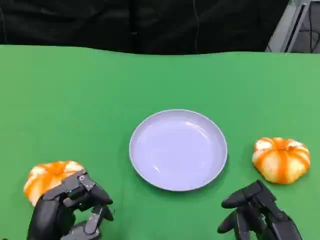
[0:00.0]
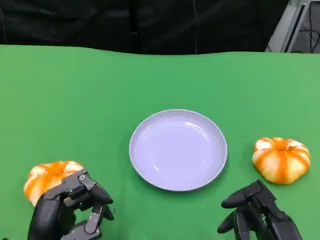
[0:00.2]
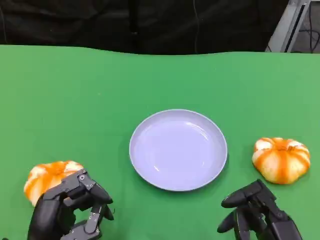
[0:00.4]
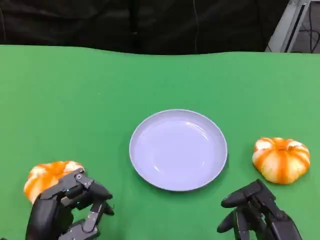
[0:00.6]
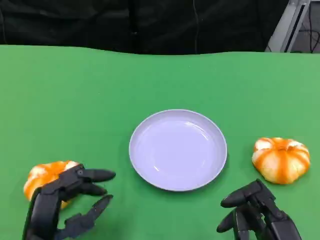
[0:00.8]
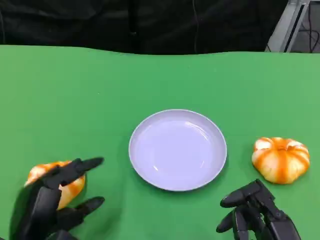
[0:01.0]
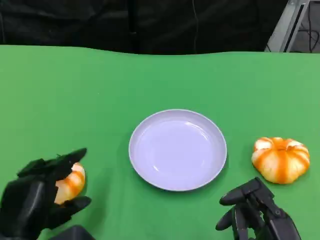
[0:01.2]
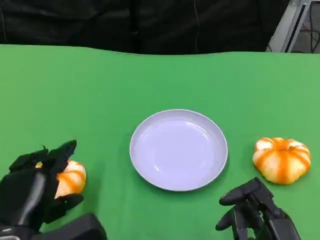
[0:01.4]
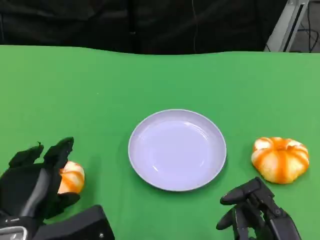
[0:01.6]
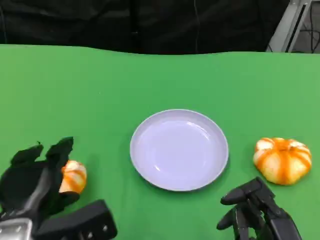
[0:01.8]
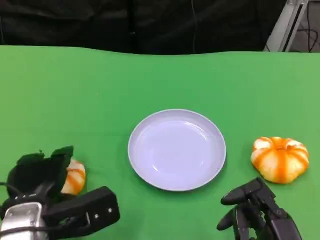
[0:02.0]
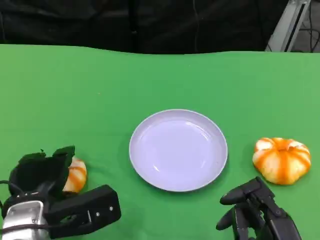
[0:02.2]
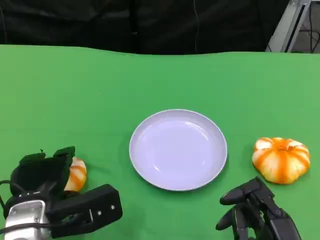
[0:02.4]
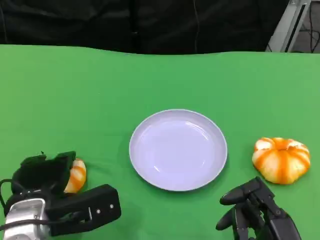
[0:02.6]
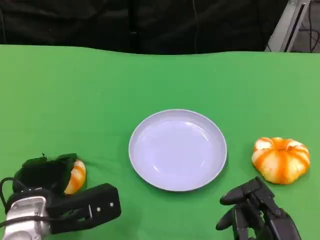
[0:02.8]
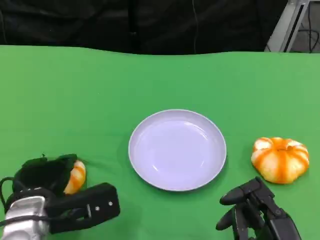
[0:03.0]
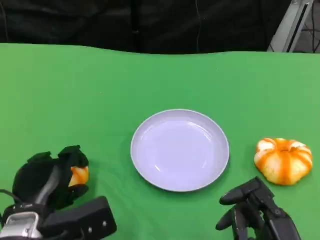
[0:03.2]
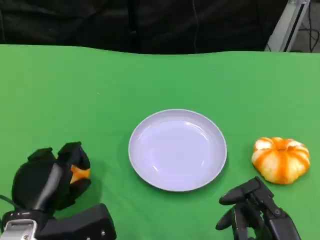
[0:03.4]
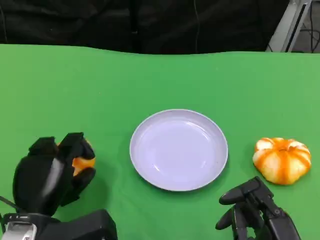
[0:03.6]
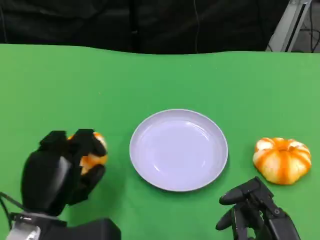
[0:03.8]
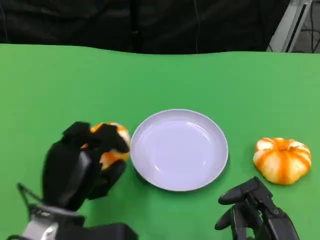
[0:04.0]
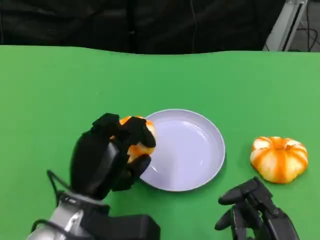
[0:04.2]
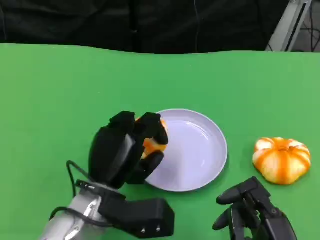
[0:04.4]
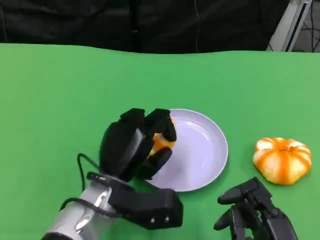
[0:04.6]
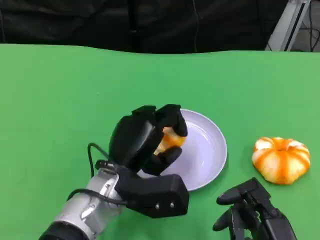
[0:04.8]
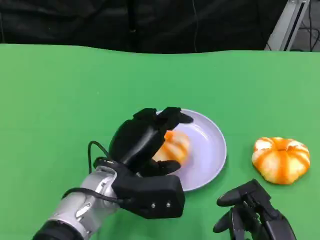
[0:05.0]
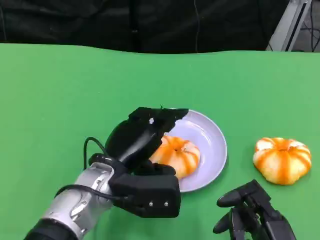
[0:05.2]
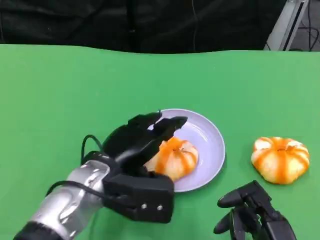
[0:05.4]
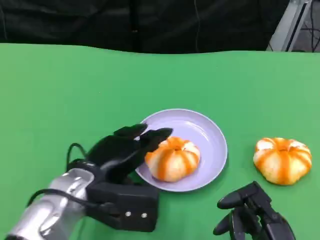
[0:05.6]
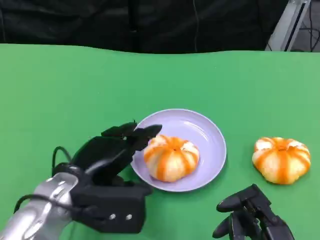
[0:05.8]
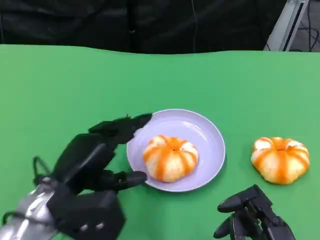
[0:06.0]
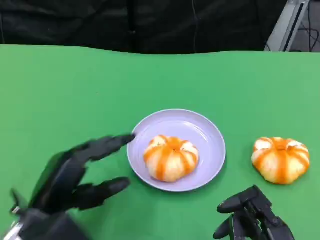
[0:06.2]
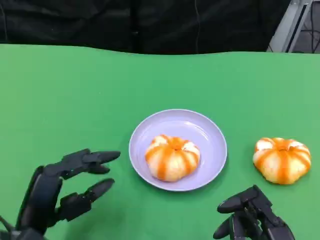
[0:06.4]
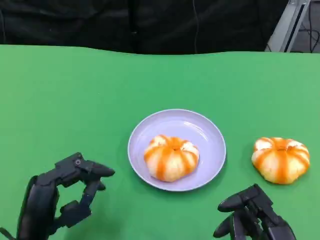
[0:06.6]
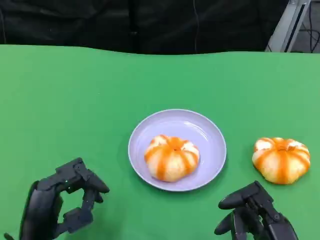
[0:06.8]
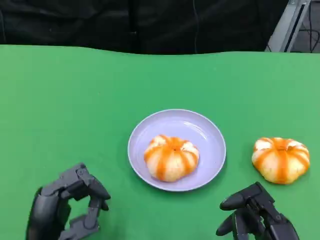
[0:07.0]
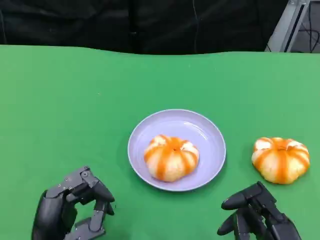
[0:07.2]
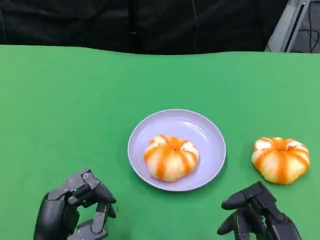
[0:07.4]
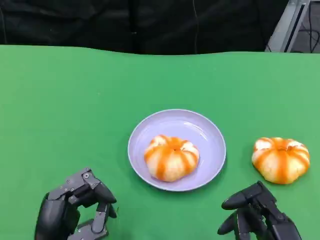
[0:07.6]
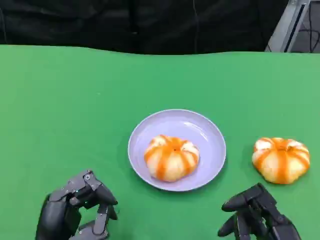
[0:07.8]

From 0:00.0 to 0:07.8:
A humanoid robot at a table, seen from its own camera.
Task of the whole recording: Grasp the bread from the table and place it into the plate.
From 0:00.0 to 0:01.6: The left hand changes place by about 5 cm.
From 0:03.2 to 0:04.6: The left hand goes roughly 10 cm to the right.
From 0:04.6 to 0:06.2: The left hand is displaced to the left and backward by about 15 cm.
From 0:06.2 to 0:07.8: The left hand moves some 5 cm.

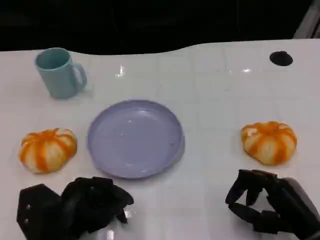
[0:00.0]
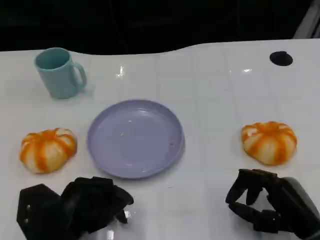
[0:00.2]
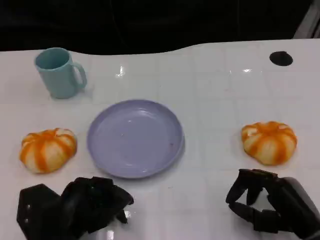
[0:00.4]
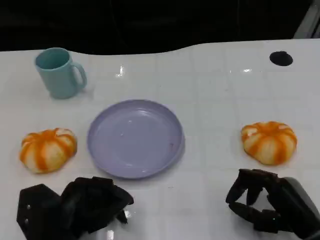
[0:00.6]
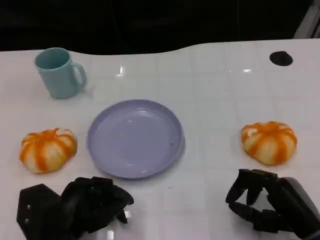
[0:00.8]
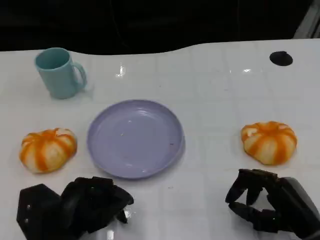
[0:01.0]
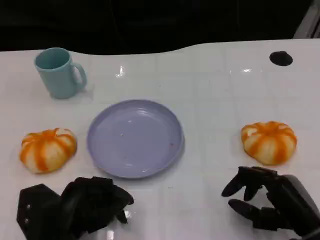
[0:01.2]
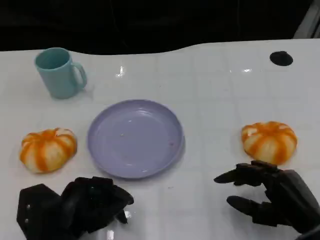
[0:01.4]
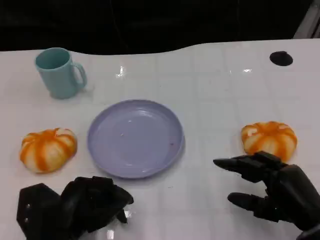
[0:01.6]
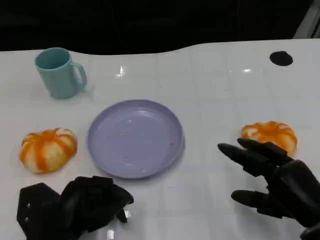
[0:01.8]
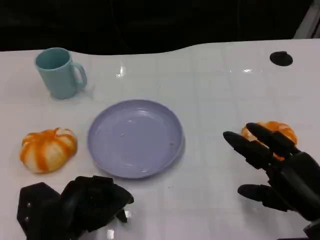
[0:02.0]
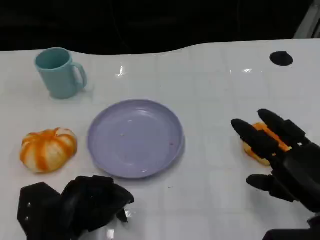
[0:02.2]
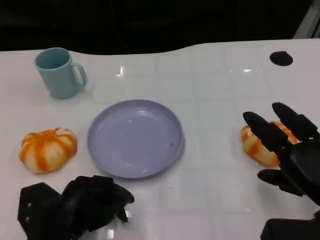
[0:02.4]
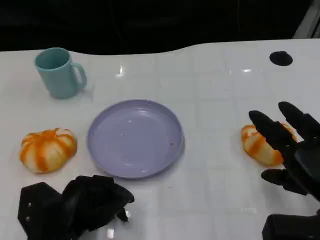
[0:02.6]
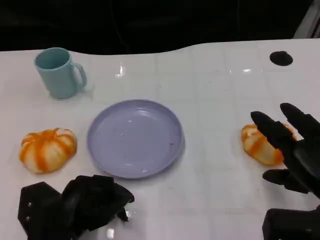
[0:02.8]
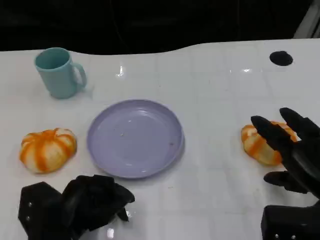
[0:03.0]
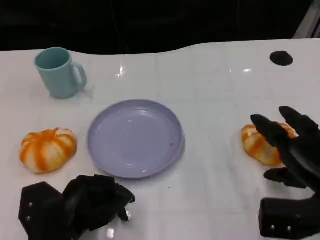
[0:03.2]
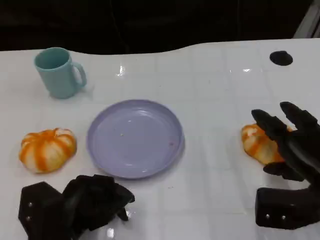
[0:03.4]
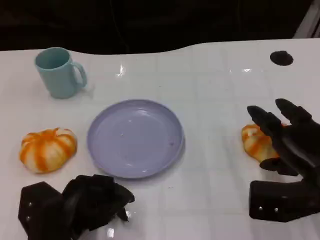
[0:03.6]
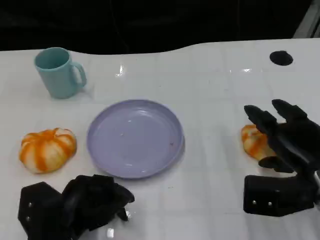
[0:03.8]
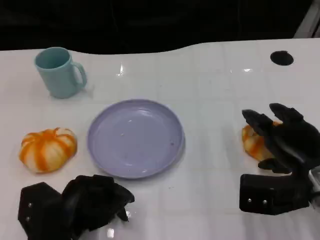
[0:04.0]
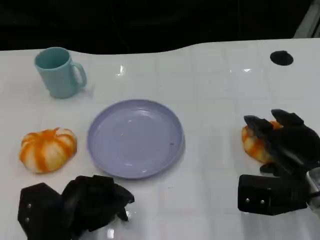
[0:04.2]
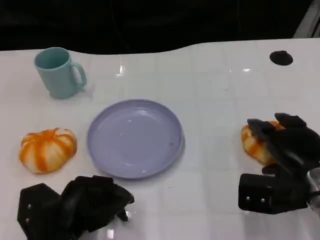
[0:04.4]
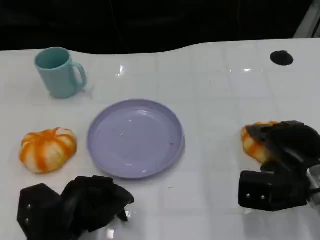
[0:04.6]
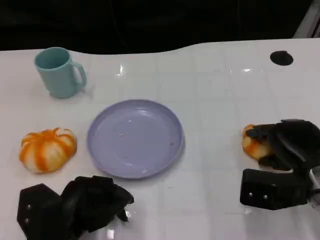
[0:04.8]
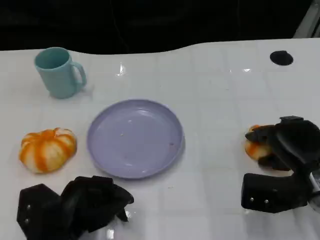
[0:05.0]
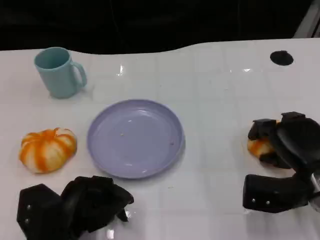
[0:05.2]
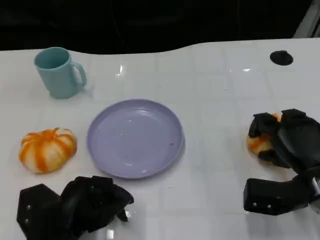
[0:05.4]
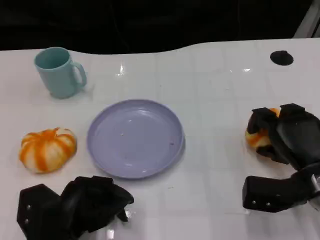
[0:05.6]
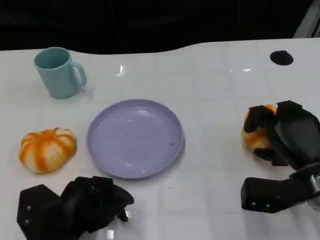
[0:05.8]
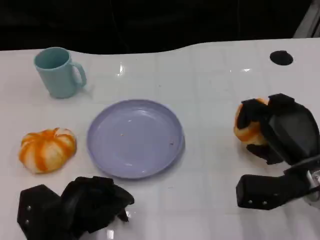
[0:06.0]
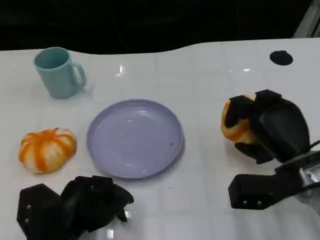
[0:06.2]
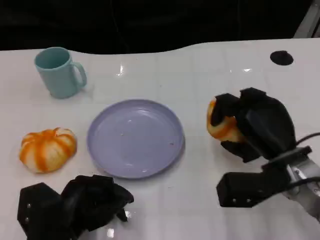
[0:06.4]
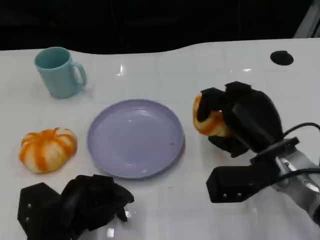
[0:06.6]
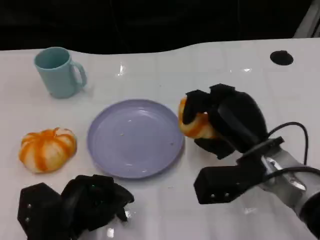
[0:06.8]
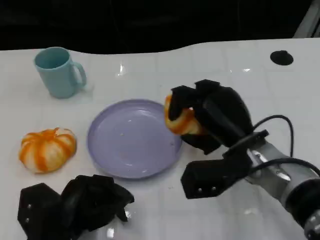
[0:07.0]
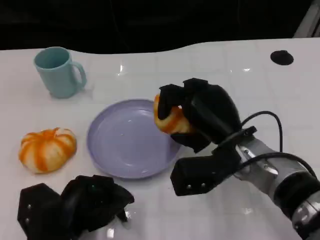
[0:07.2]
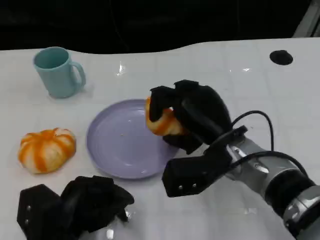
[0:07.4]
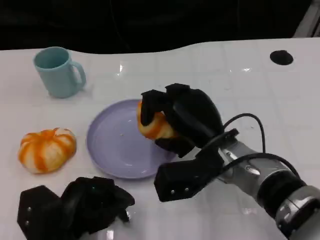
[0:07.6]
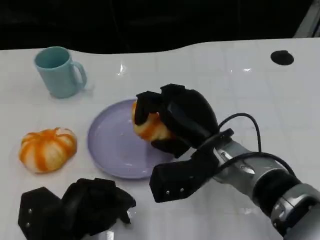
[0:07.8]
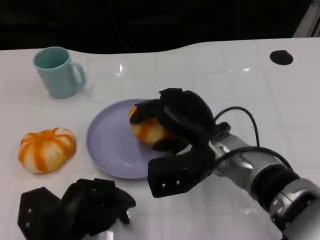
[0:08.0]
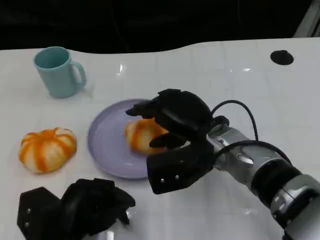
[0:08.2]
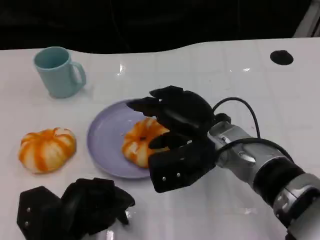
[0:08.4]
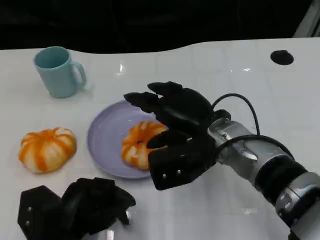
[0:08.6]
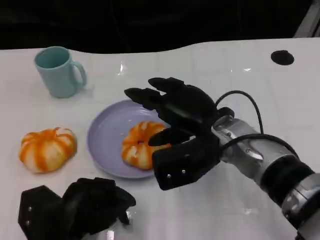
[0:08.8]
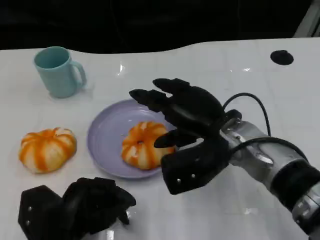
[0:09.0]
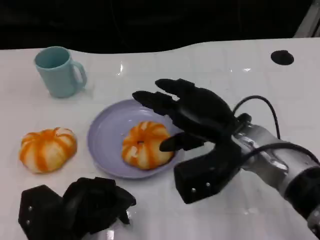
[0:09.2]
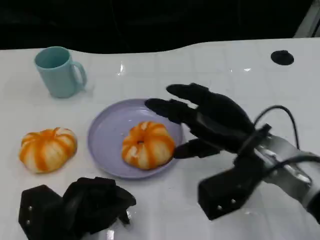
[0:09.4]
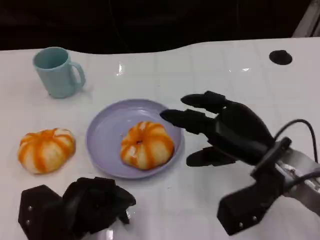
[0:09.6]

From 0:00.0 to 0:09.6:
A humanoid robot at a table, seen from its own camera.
Task of the whole recording: Grasp the bread from the table and place it into the plate.
From 0:00.0 to 0:01.6: The hands make only small movements.
From 0:01.6 to 0:03.2: The right hand shifts by approximately 5 cm.
From 0:03.2 to 0:04.8: The hands move only a little.
From 0:04.8 to 0:06.4: The right hand ends up approximately 5 cm from where it was.
From 0:06.4 to 0:08.0: The right hand heads to the left, covering some 10 cm.
From 0:08.0 to 0:09.6: The right hand is displaced to the right by approximately 10 cm.

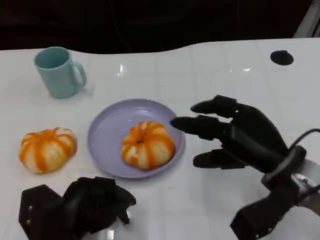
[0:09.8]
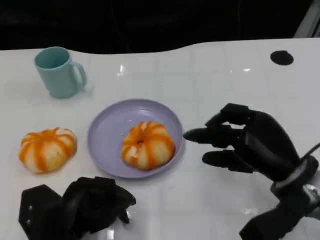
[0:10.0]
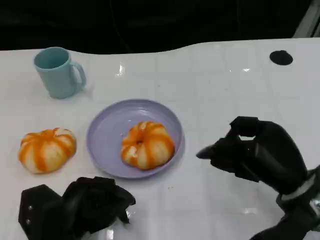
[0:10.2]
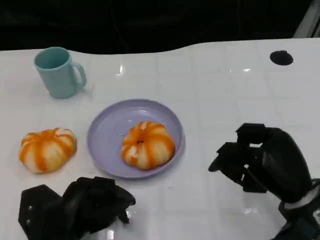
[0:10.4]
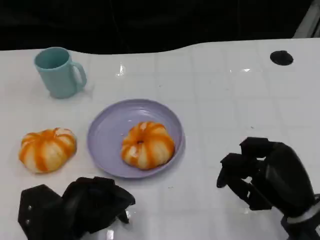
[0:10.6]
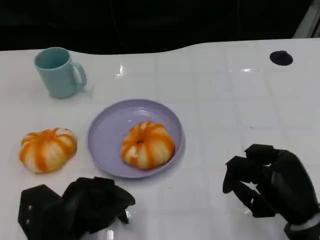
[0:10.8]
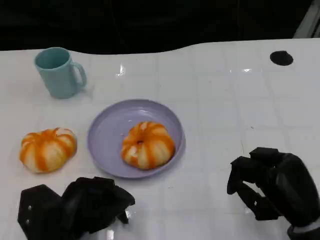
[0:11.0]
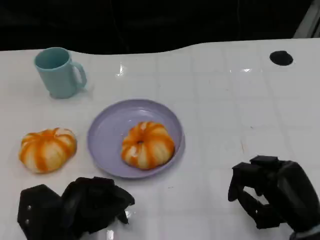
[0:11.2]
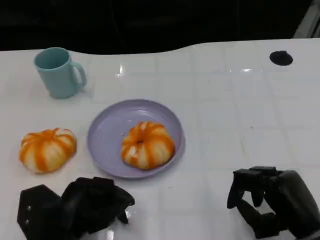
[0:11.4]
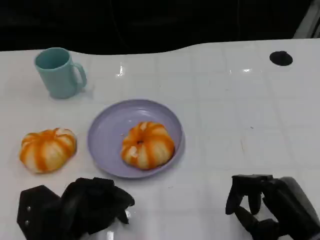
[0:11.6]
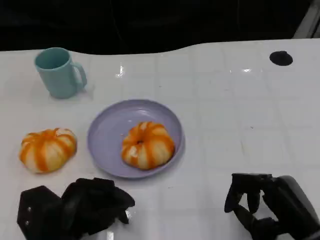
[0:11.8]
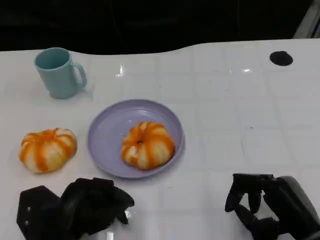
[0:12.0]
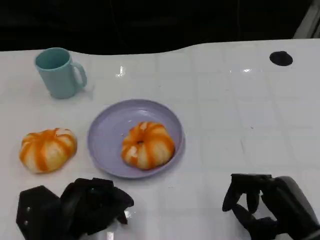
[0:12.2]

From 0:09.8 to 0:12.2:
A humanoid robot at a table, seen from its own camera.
Task of the whole recording: Grasp the bread from the table and place it into the plate.
From 0:09.8 to 0:11.0: The right hand moves backward and downward, approximately 10 cm.

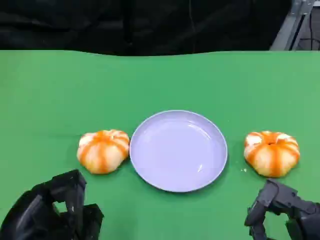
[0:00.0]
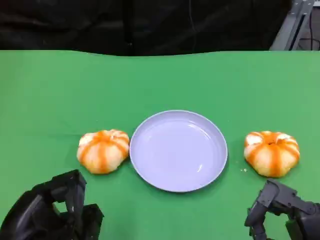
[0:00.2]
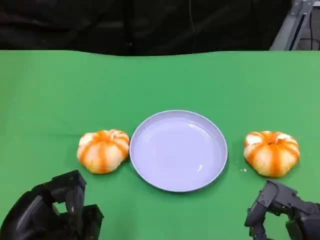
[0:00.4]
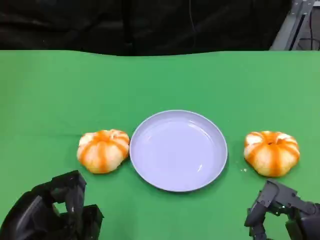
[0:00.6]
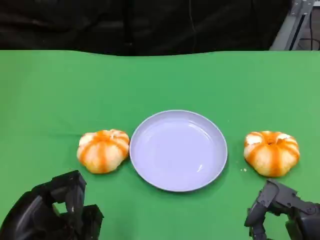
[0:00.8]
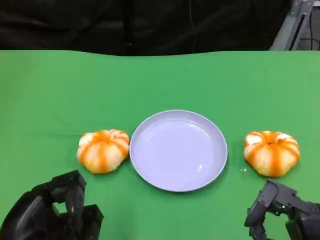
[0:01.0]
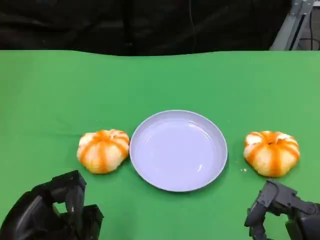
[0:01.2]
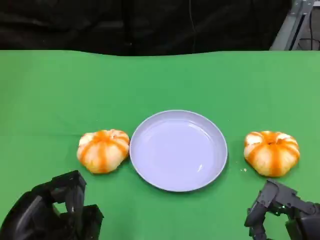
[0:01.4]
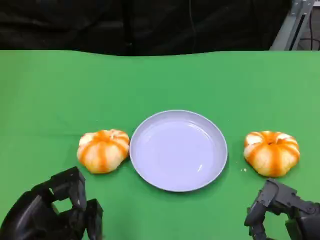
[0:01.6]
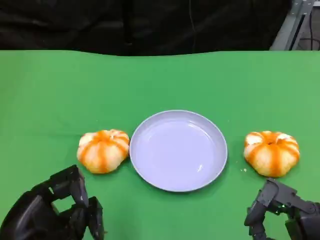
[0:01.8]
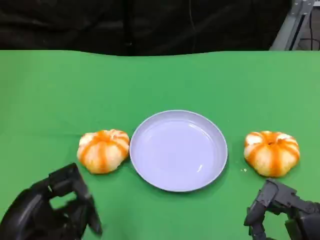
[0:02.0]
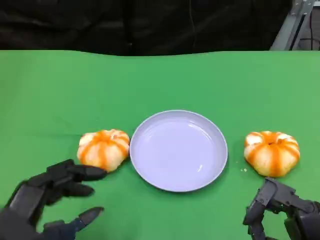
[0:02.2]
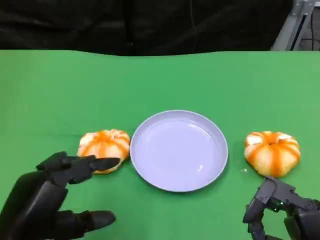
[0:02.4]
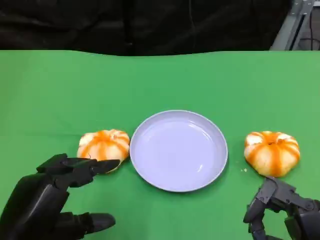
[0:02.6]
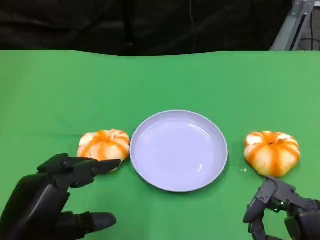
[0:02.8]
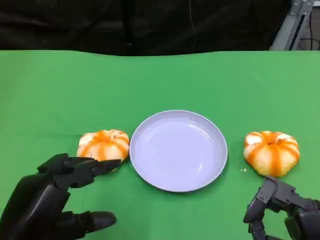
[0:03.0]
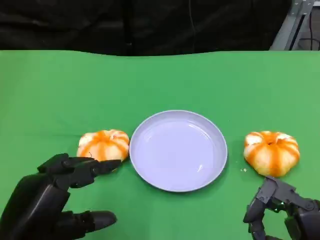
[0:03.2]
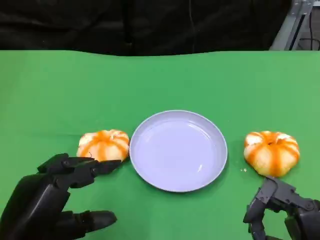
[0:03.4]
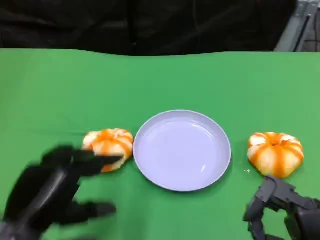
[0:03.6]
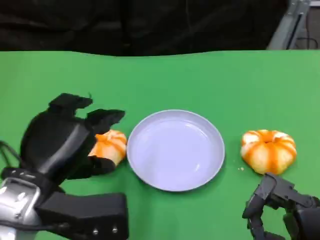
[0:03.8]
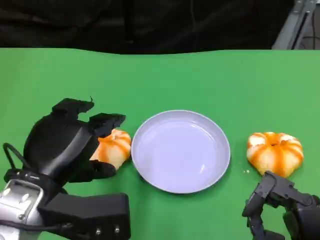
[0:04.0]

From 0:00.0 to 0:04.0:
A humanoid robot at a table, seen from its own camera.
Task of the whole recording: Grasp the bread from the table and place it into the plate.
From 0:00.0 to 0:01.4: The two hands keep their place.
From 0:02.6 to 0:04.0: The left hand goes some 5 cm forward.
